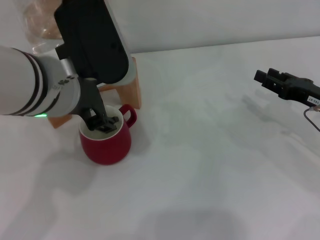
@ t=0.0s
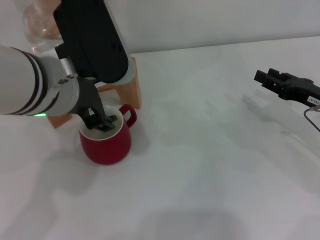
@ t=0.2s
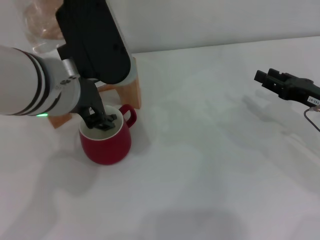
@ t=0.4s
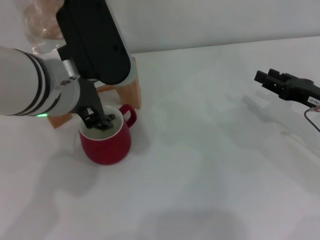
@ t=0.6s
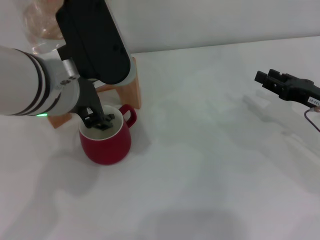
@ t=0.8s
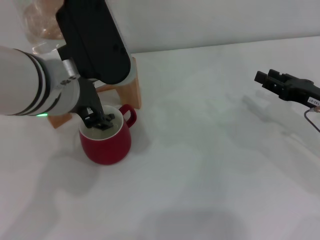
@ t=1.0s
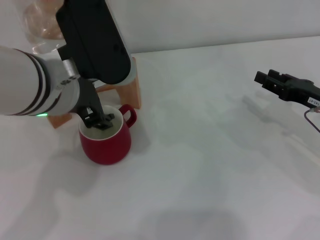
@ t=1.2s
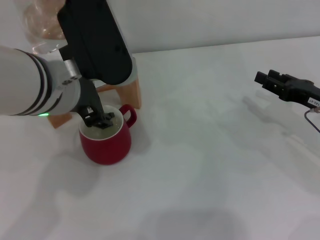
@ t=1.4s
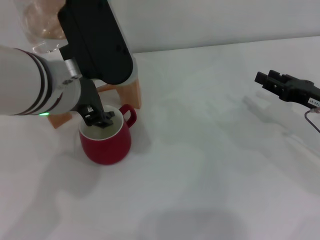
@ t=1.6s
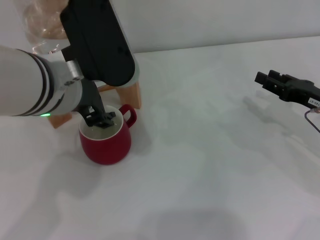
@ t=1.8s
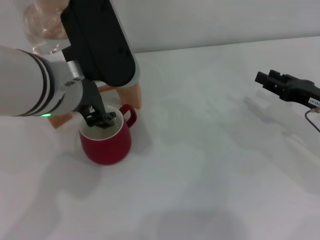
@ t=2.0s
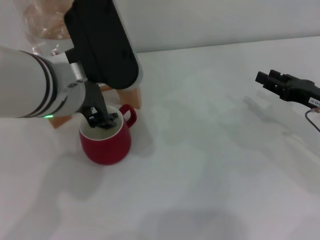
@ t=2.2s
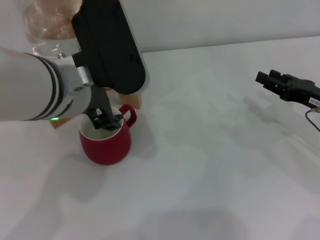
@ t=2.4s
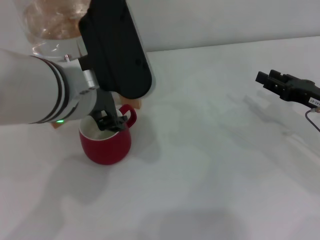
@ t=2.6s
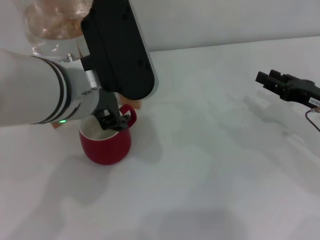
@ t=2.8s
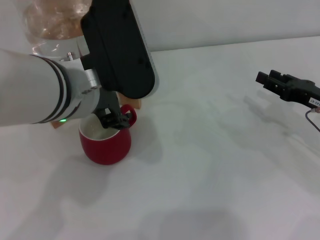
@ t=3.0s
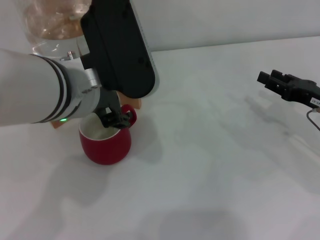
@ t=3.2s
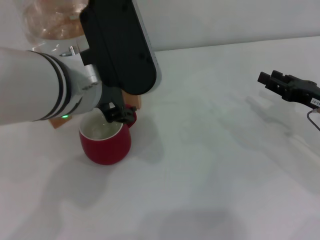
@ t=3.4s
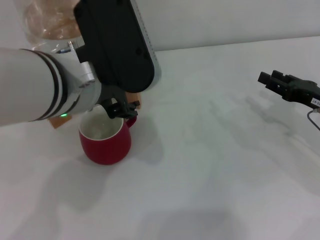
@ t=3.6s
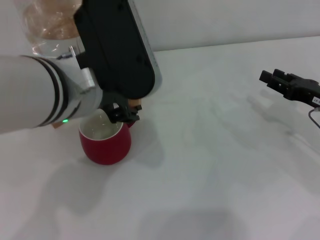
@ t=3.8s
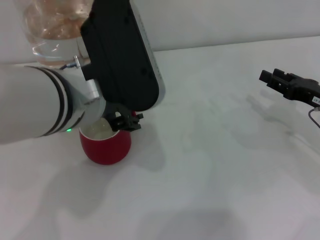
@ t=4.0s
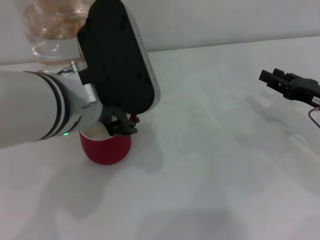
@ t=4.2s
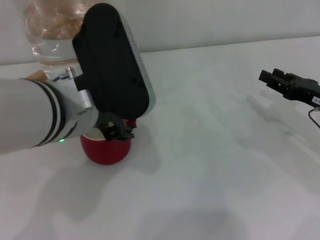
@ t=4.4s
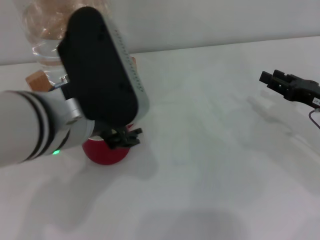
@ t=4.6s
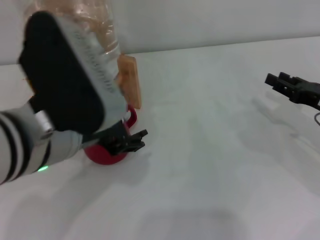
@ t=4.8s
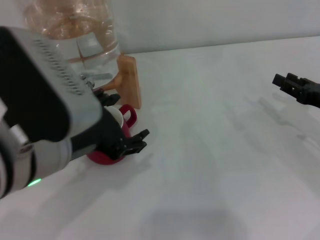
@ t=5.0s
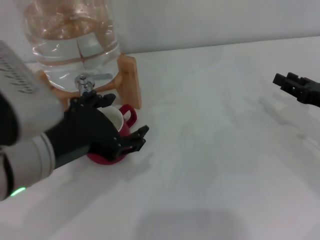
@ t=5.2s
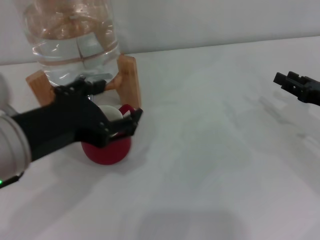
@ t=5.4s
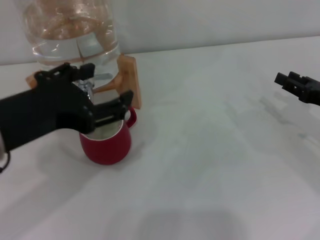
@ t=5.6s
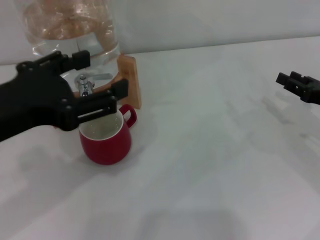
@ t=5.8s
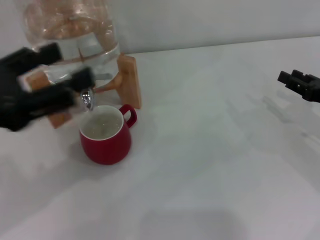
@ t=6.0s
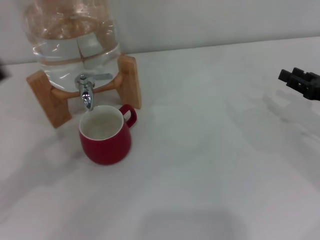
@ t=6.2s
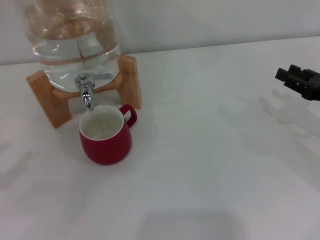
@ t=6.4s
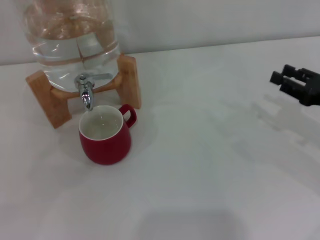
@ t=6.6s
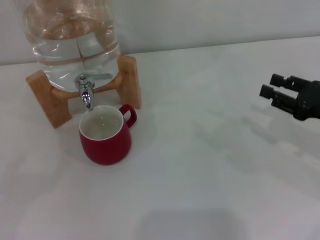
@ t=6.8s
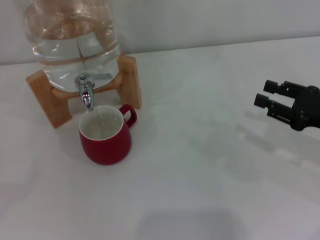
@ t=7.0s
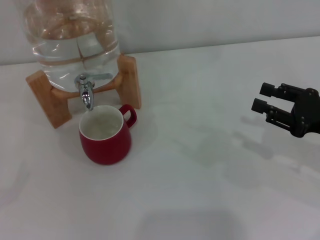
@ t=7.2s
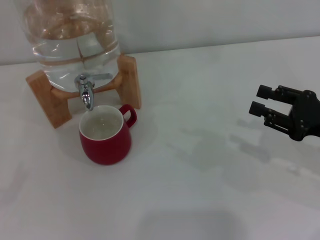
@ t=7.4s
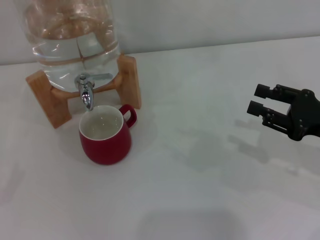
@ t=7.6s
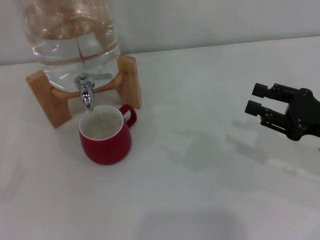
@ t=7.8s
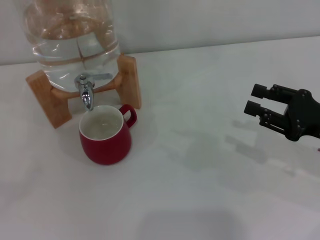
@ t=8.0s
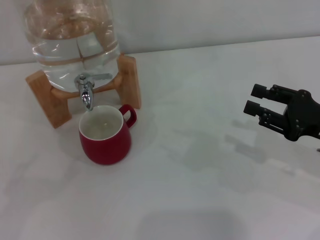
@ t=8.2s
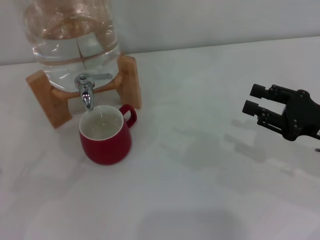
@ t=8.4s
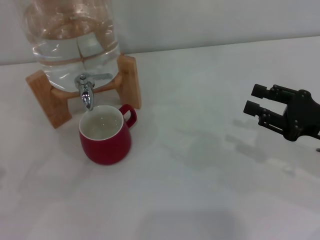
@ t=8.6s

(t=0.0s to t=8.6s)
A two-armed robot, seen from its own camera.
Task of the whole recording: the right gripper pick up the red cup and place it horizontally under the faucet, the left gripper turn on the faucet to fill the cup, and then turn off the faucet.
Step, t=0.0s - t=5.2s: Close the dispenser valve with the left gripper.
t=0.0s - t=1.4s: Neither gripper changes place.
t=1.4s - t=4.4s: The grippers stay close to where they were, moving slightly.
t=4.4s - t=5.8s: The left gripper goes about 15 cm to the left and backward.
t=5.8s - t=7.2s: The right gripper moves approximately 5 cm. The left gripper shifts roughly 30 cm to the left and downward.
